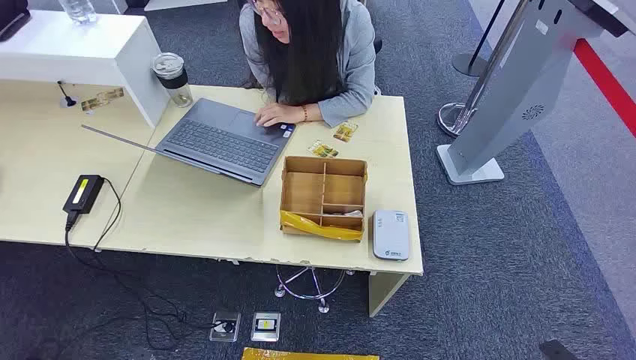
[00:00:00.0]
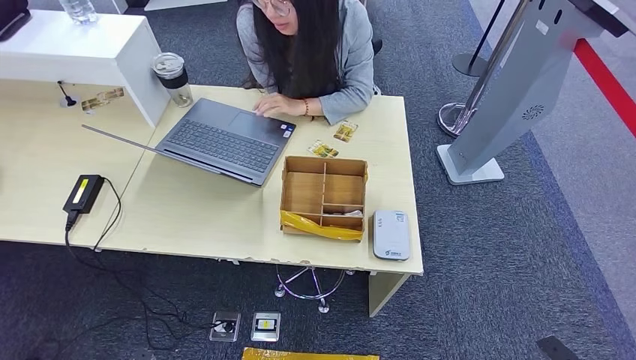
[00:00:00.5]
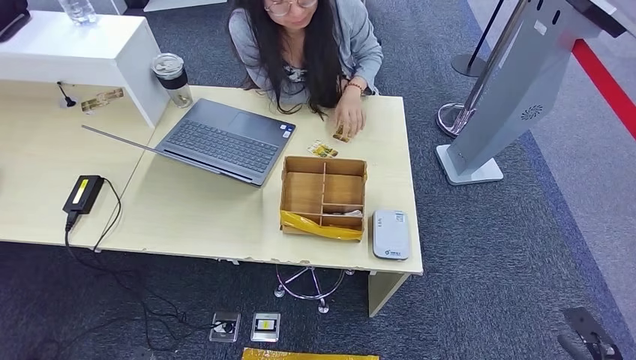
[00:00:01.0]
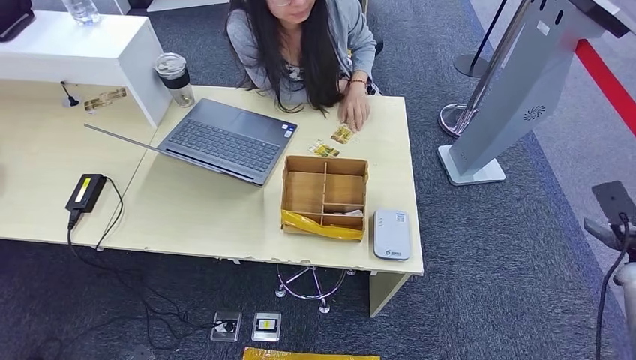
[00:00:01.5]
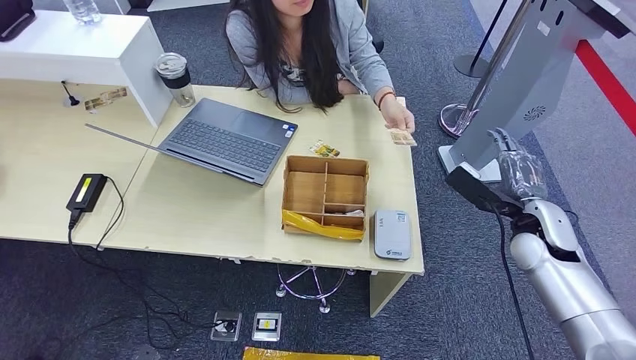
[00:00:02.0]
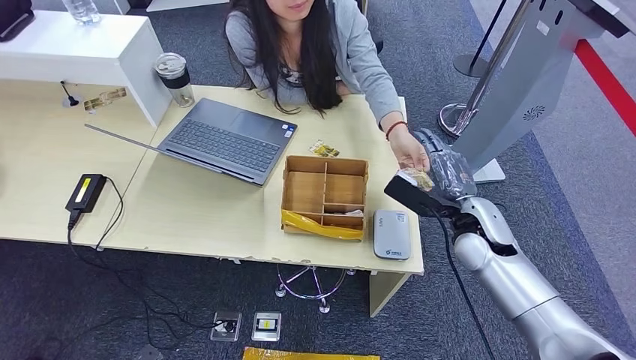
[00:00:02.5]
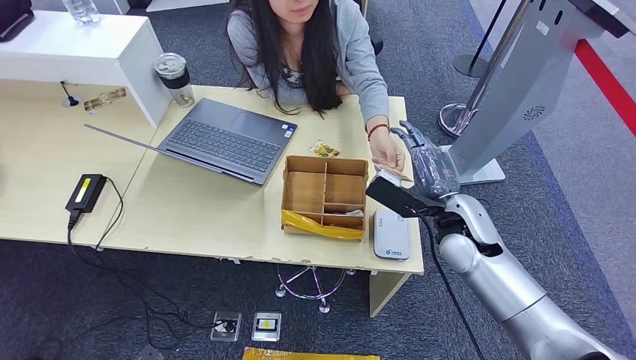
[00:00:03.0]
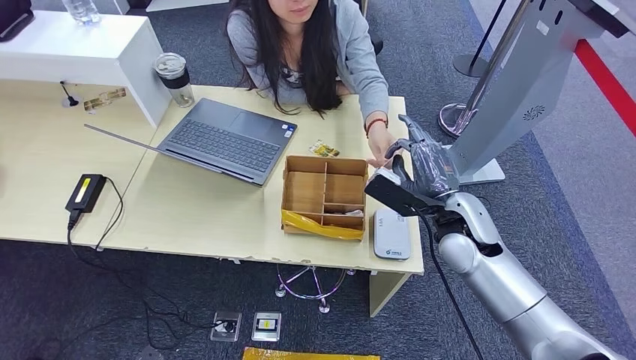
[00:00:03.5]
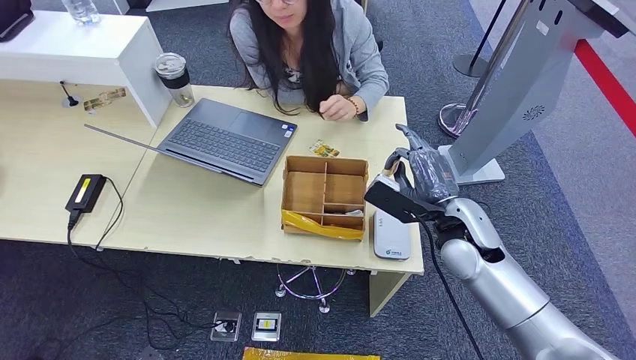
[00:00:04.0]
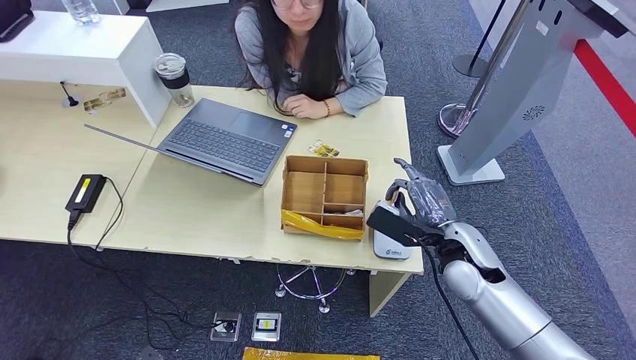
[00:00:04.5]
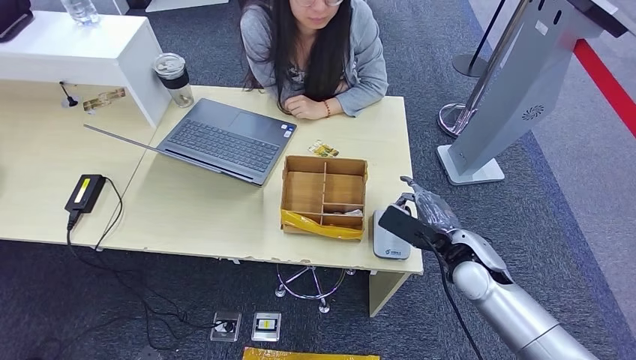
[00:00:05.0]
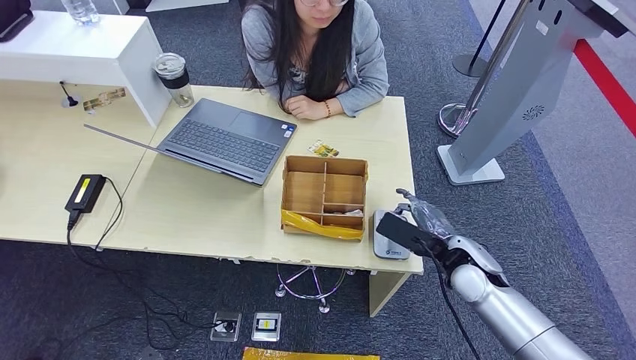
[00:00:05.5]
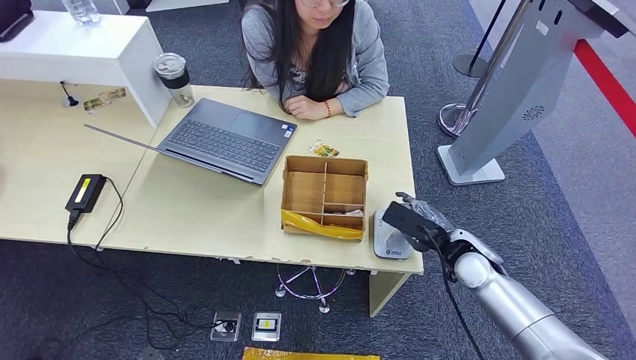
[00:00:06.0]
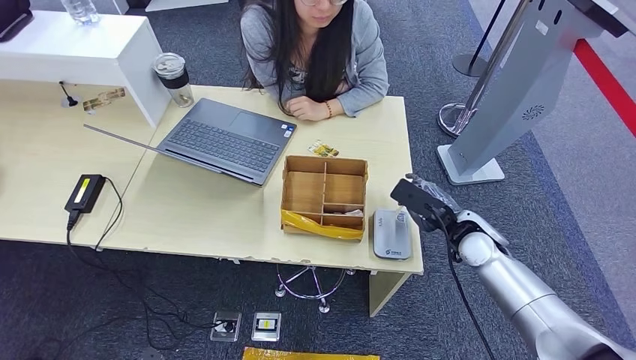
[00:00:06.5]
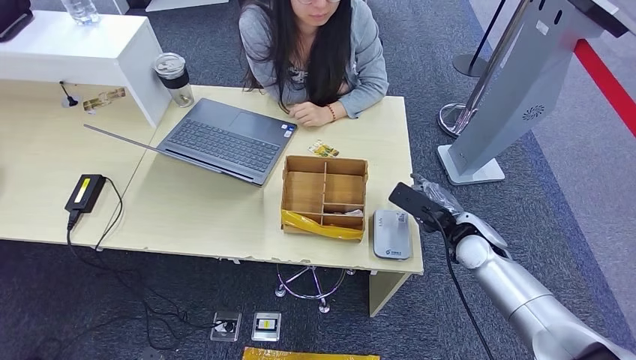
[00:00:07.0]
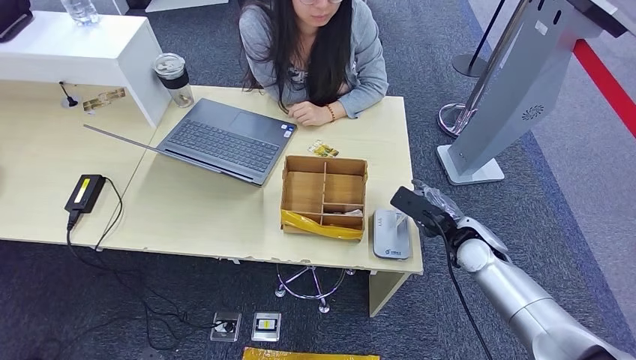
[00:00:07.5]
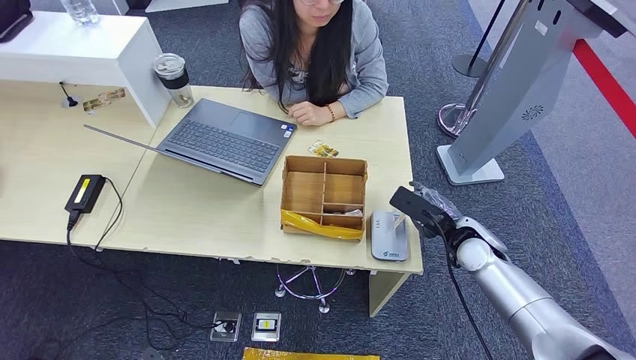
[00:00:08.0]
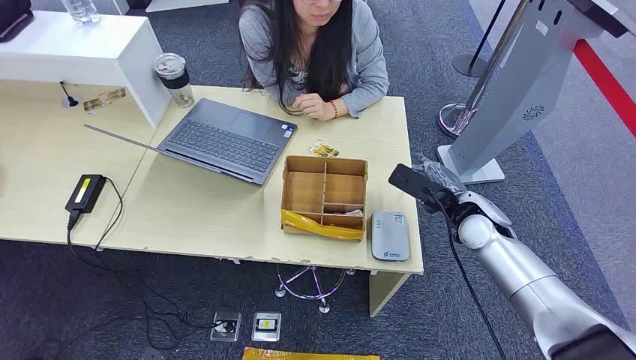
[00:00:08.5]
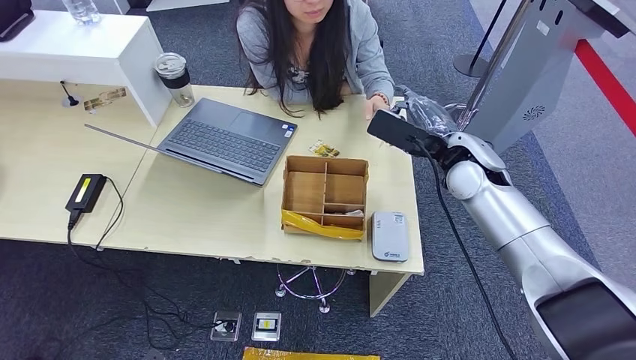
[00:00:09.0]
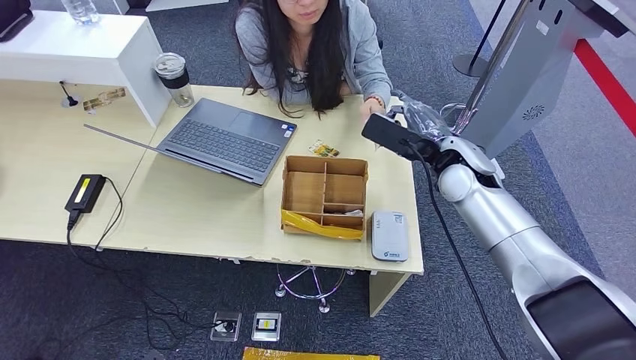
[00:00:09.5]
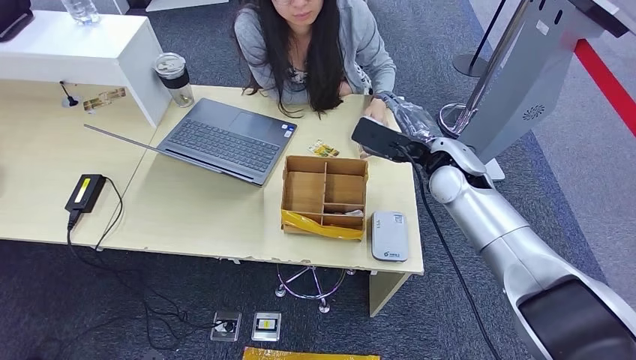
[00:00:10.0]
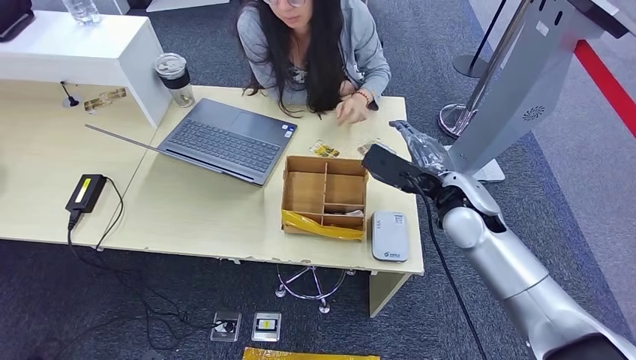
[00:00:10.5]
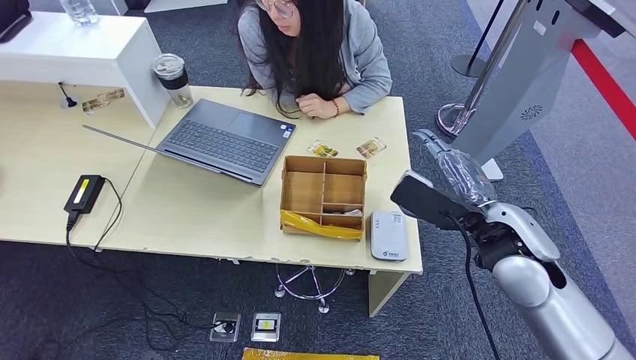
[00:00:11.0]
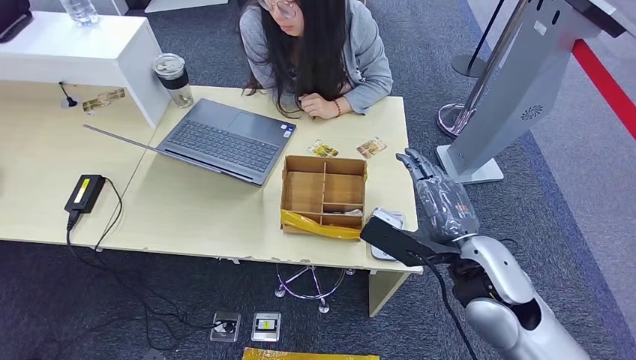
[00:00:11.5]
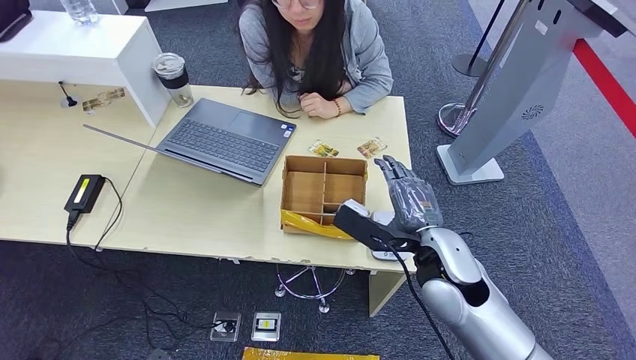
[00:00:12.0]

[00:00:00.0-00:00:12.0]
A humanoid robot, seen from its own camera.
Step, 00:00:00.0 to 00:00:04.0: Take the ID card from the person's hand.
Step, 00:00:04.5 to 00:00:05.5: Place the ID card on the card reader.
Step, 00:00:06.0 to 00:00:10.0: Hand the ID card to the person.
00:00:02.0 to 00:00:04.0: The right hand travels to the left by roughly 15 cm.
00:00:04.0 to 00:00:06.0: The right hand heads downward, covering some 10 cm.
00:00:06.0 to 00:00:08.0: The hands move only a little.
00:00:08.0 to 00:00:10.0: The right hand goes roughly 15 cm upward, forward and to the left.
00:00:10.0 to 00:00:12.0: The right hand moves backward, some 15 cm.

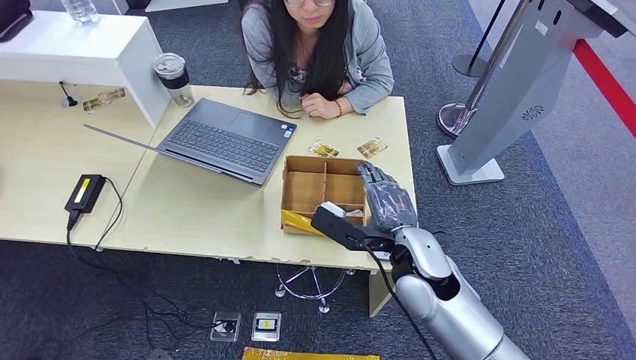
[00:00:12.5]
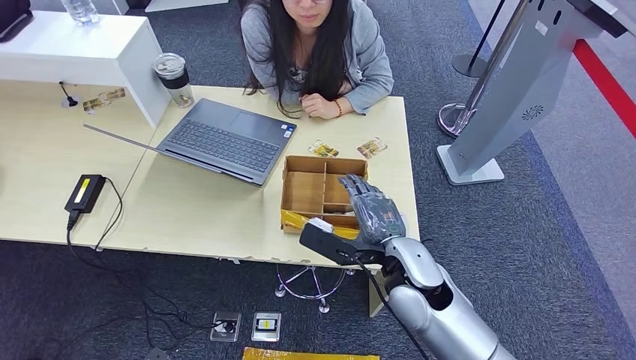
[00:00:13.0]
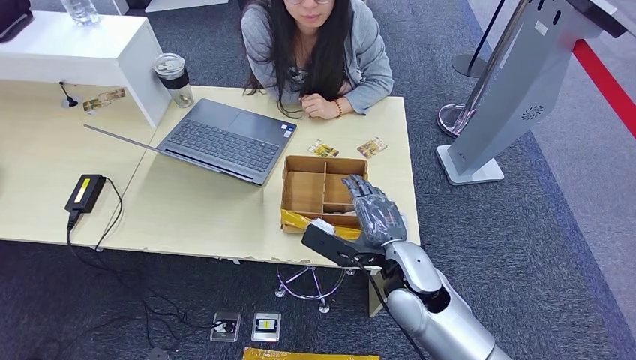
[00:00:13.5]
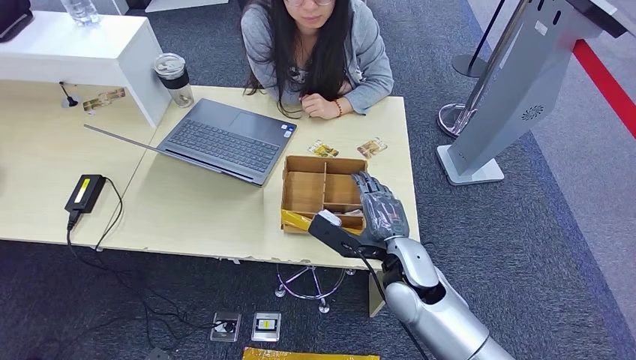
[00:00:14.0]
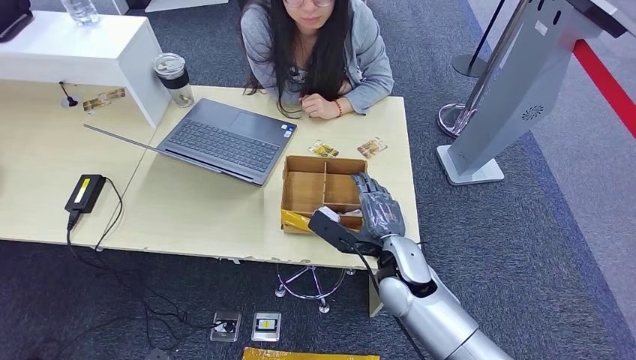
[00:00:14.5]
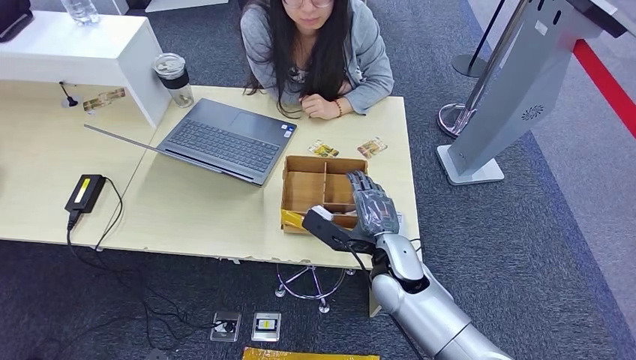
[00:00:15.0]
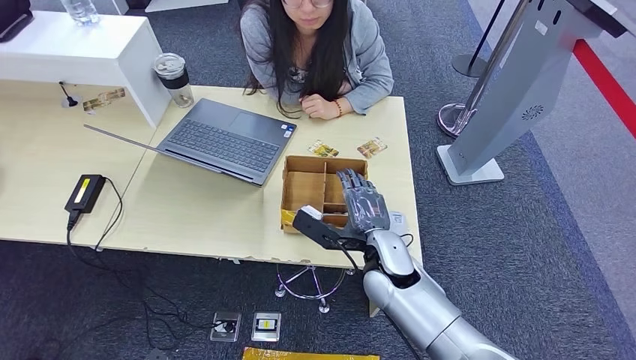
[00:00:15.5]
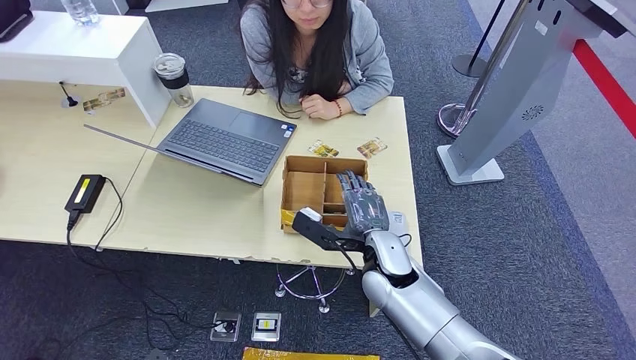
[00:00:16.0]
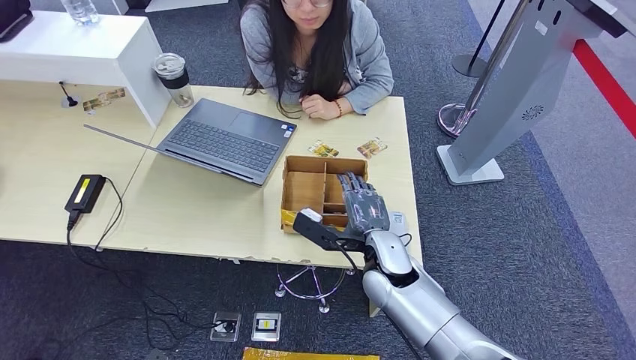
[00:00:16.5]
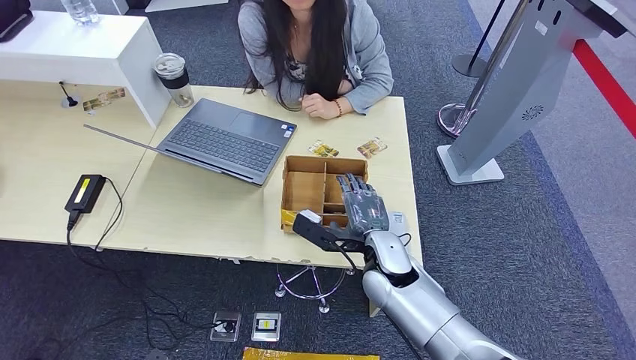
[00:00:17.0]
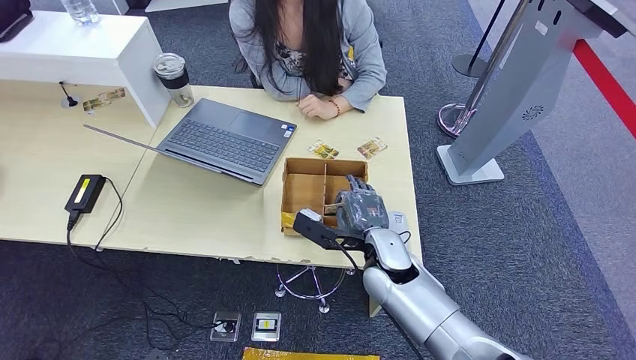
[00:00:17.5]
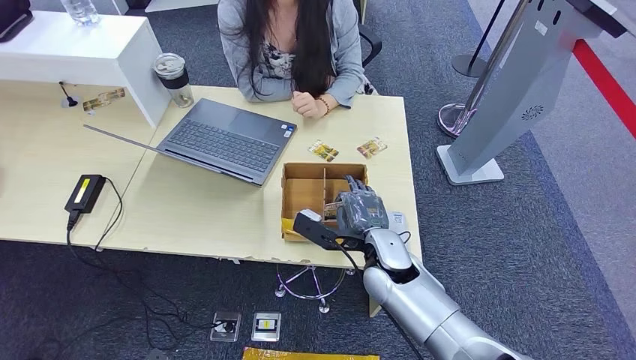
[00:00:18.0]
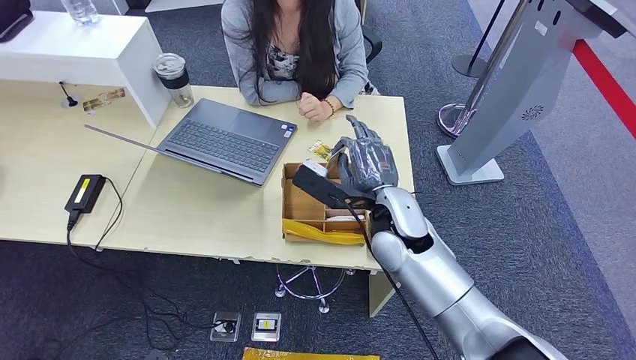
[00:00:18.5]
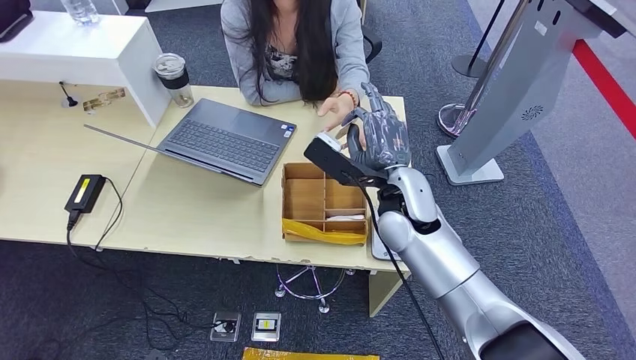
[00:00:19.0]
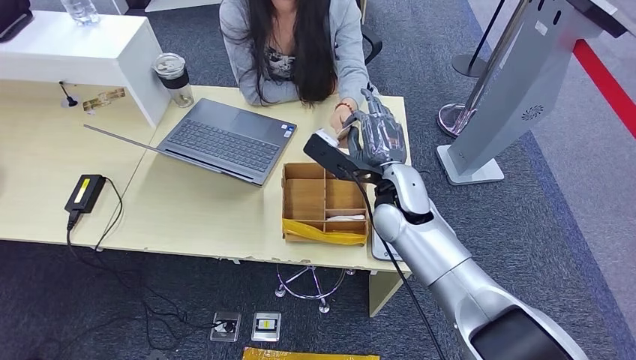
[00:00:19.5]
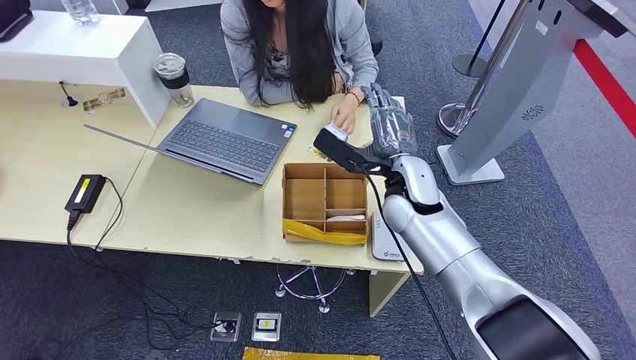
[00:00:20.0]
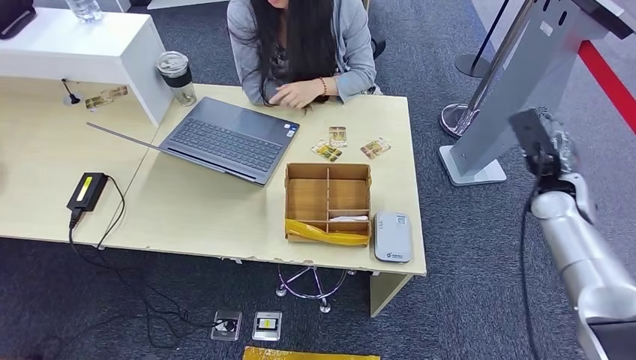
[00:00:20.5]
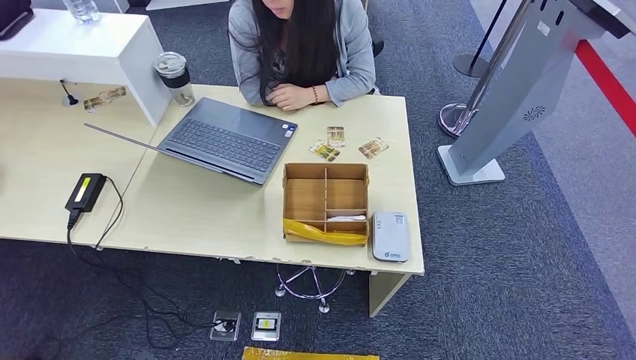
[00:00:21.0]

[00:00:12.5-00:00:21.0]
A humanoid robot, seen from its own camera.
Step, 00:00:12.5 to 00:00:19.0: Pick up the room key from the key card box.
Step, 00:00:19.5 to 00:00:21.0: Hand the room key to the person.
00:00:12.5 to 00:00:14.5: The right hand heads downward, covering roughly 5 cm.
00:00:14.5 to 00:00:16.5: The hands move only a little.
00:00:16.5 to 00:00:19.0: The right hand moves upward and forward, about 15 cm.
00:00:19.0 to 00:00:21.0: The right hand shifts some 50 cm to the right.
